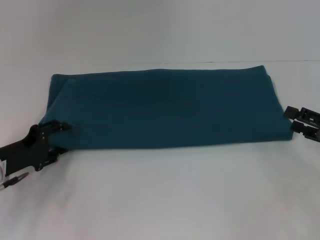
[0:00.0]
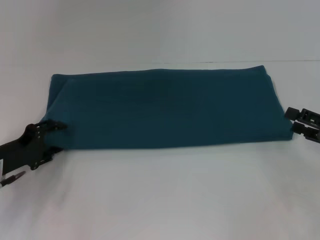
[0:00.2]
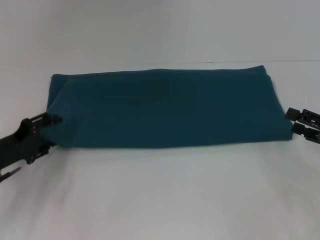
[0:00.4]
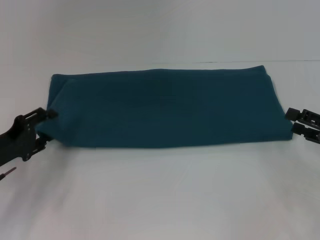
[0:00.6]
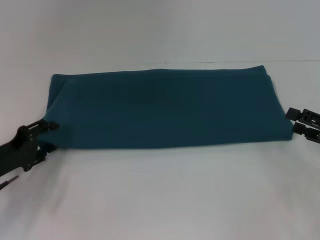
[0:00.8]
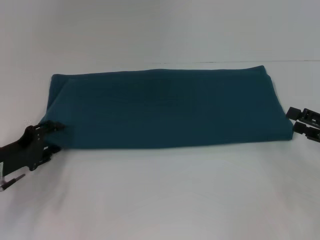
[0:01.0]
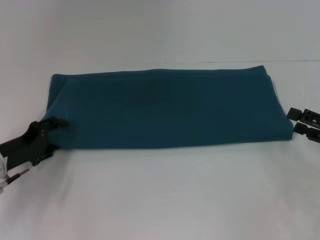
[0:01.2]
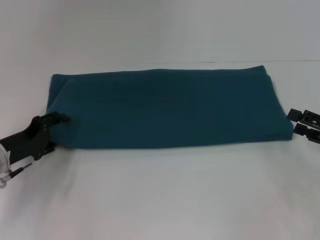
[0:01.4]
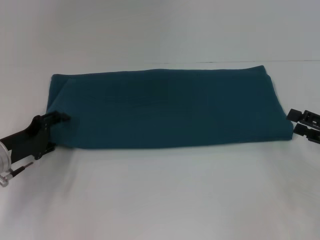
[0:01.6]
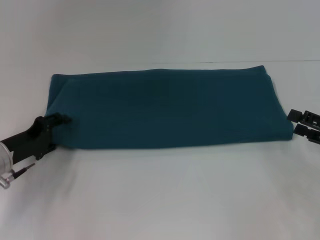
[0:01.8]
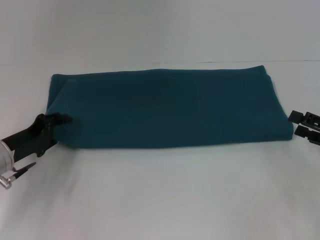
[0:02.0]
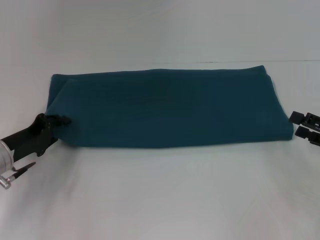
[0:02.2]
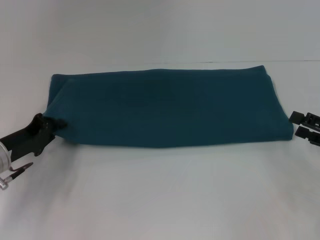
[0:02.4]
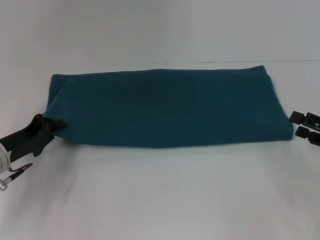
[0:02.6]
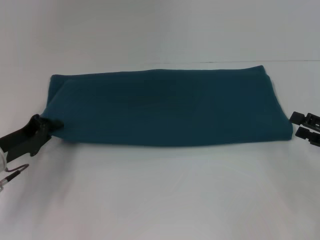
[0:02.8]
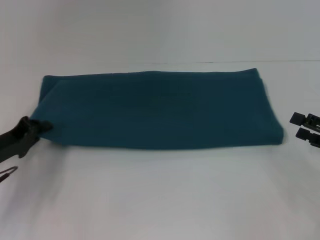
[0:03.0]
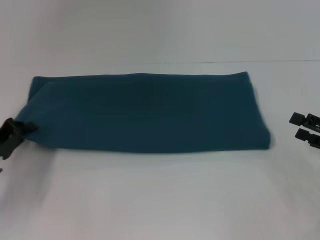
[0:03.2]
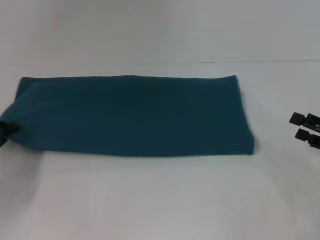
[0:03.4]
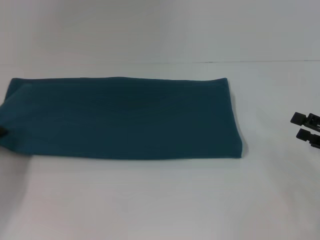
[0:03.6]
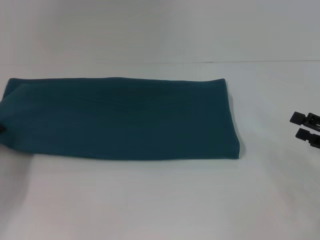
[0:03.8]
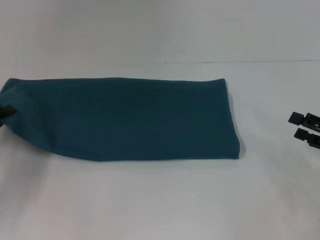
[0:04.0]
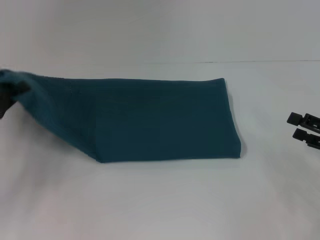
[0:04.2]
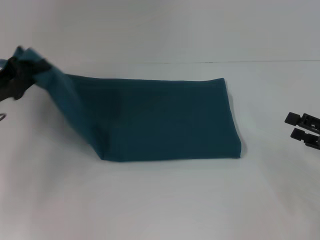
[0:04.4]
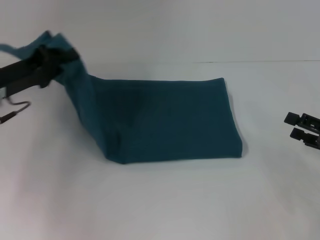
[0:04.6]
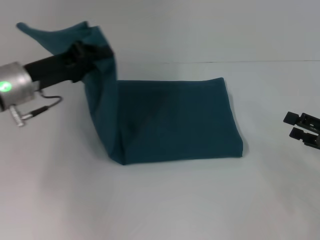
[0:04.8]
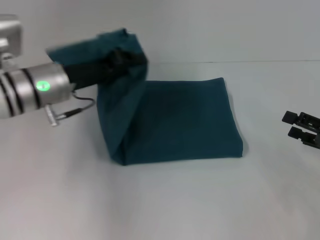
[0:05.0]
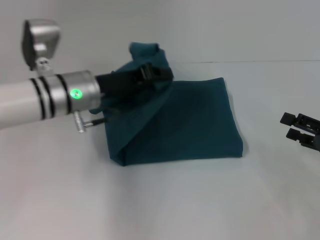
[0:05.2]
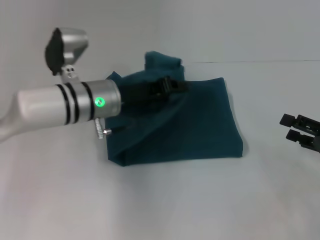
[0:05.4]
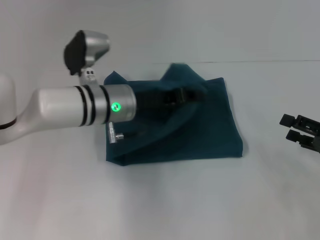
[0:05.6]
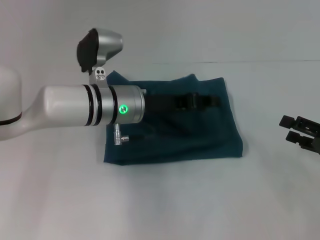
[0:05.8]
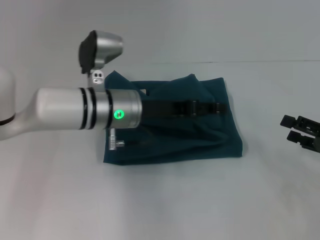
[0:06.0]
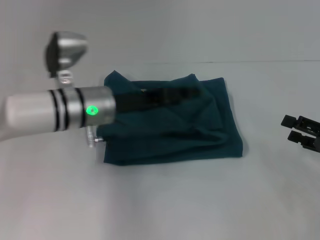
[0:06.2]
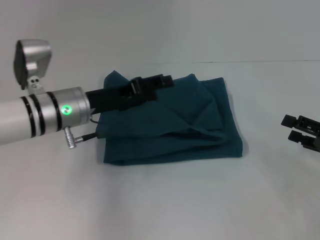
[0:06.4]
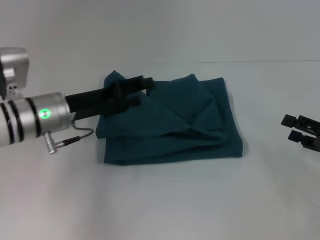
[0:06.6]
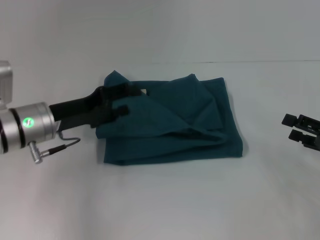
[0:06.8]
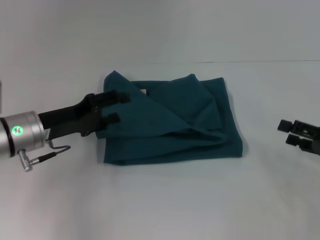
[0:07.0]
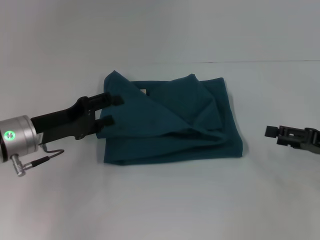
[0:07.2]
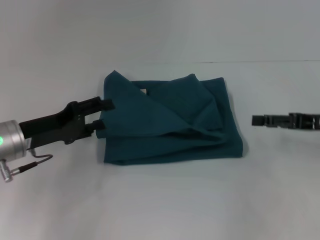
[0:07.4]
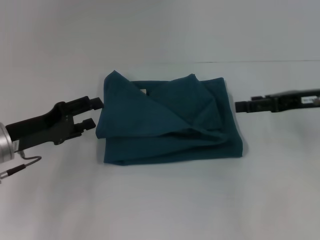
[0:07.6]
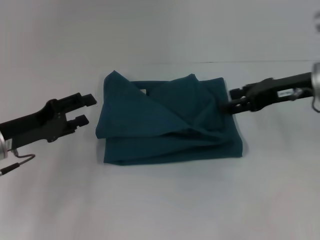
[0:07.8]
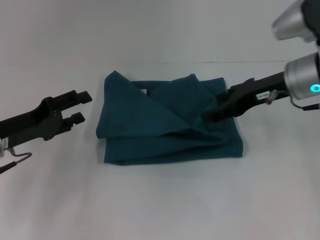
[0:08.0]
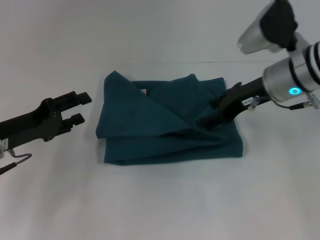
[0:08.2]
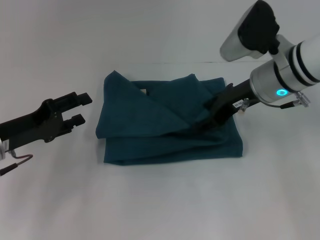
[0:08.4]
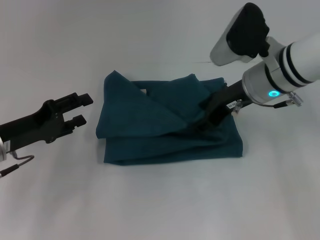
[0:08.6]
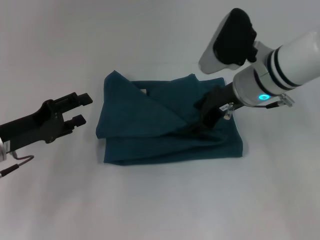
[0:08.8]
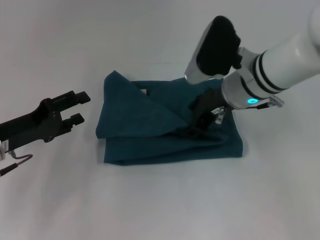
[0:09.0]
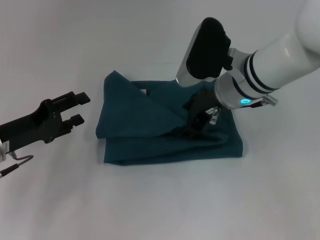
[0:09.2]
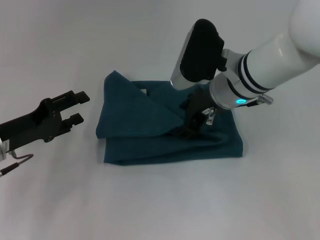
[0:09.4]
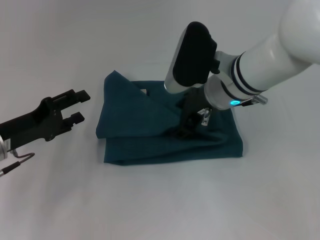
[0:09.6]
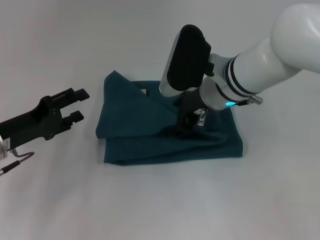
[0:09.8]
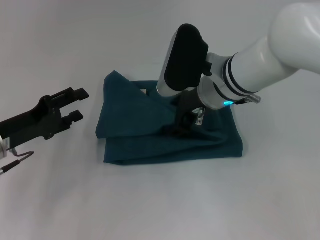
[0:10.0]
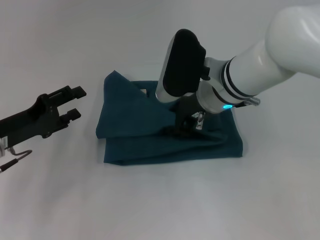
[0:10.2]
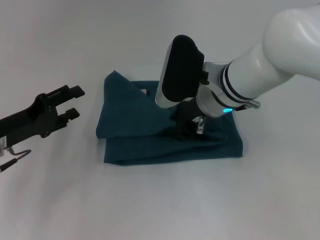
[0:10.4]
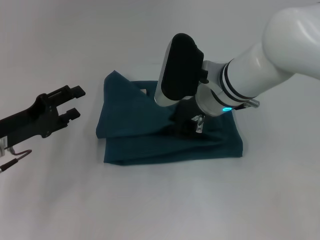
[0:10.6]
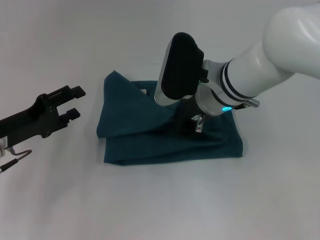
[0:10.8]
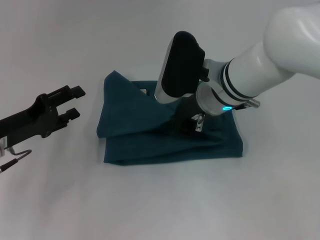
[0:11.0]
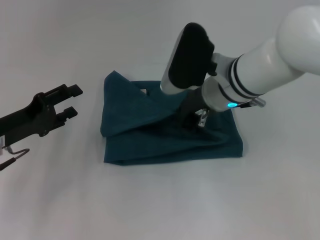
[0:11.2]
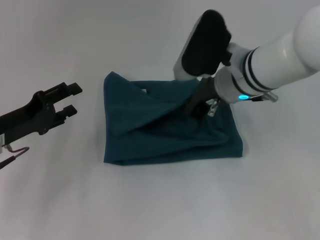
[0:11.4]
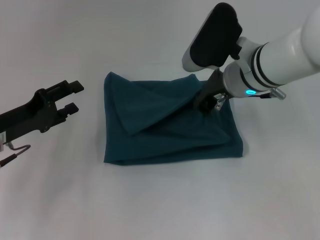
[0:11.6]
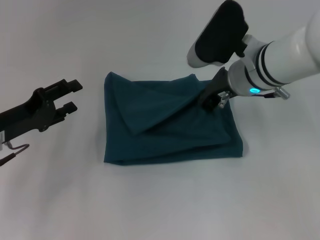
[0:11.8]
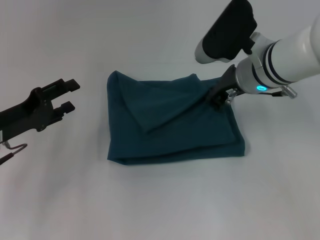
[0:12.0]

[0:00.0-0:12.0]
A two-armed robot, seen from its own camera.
Step, 0:00.0 to 0:06.2: Fold the clothes to the left.
0:00.0 to 0:01.6: There are only small adjustments of the grippers.
0:01.6 to 0:03.0: The left gripper closes its fingers.
0:03.0 to 0:04.4: The left gripper moves upward, about 10 cm.
0:04.4 to 0:06.0: The left gripper shifts about 20 cm to the right, and opens.
0:06.0 to 0:07.6: The left gripper shifts approximately 15 cm to the left. The right gripper moves forward, upward and to the left, some 15 cm.
0:07.6 to 0:09.0: The right gripper goes some 15 cm to the left.
0:09.0 to 0:10.4: The grippers move only a little.
0:10.4 to 0:12.0: The right gripper moves to the right, about 5 cm, and closes up.

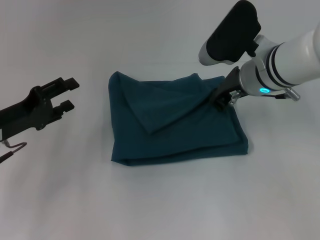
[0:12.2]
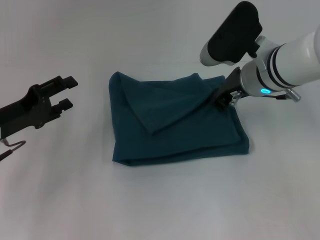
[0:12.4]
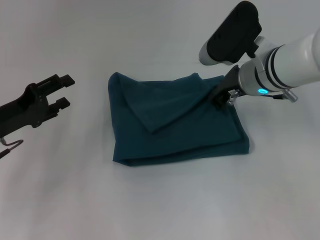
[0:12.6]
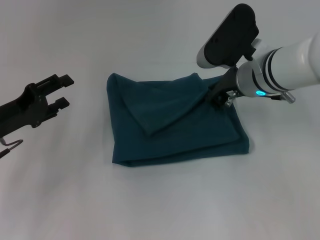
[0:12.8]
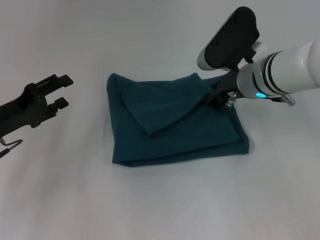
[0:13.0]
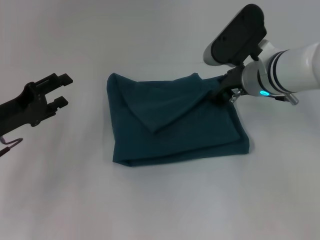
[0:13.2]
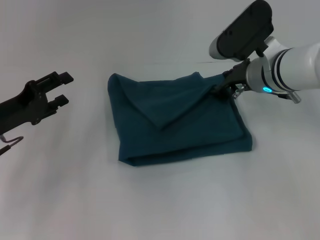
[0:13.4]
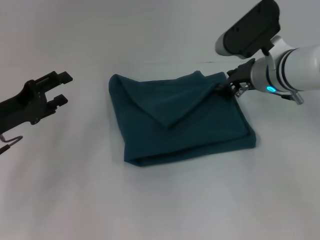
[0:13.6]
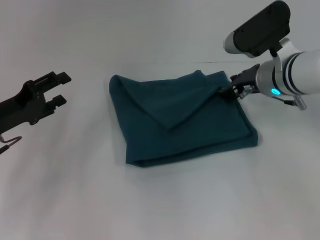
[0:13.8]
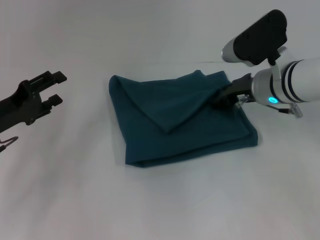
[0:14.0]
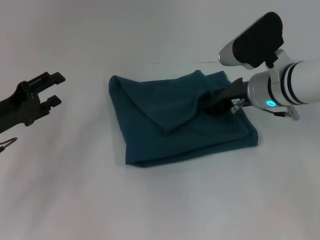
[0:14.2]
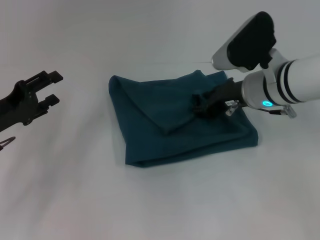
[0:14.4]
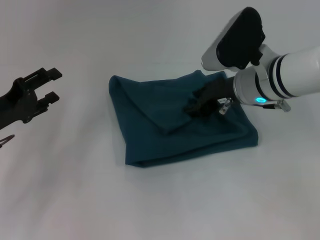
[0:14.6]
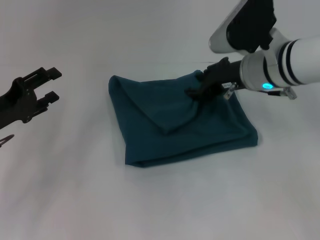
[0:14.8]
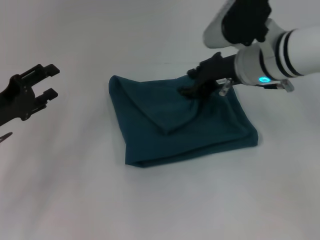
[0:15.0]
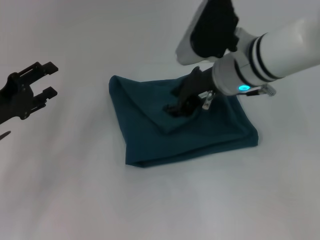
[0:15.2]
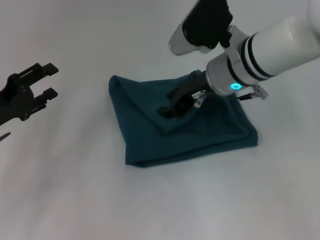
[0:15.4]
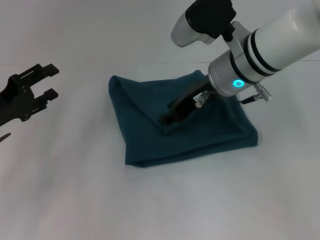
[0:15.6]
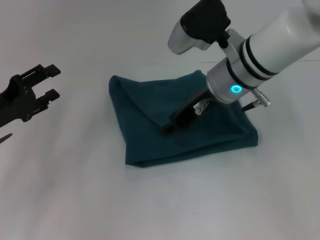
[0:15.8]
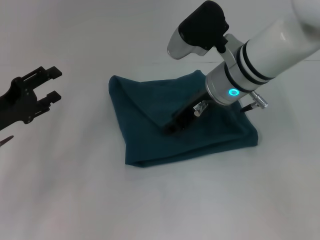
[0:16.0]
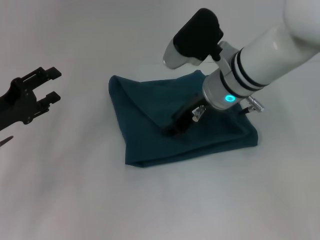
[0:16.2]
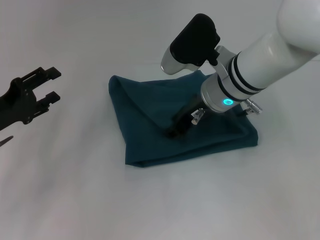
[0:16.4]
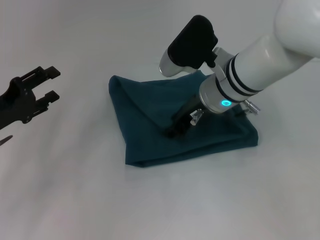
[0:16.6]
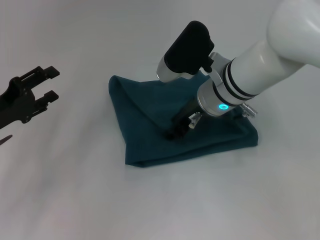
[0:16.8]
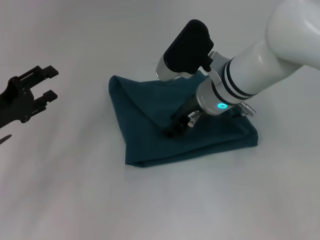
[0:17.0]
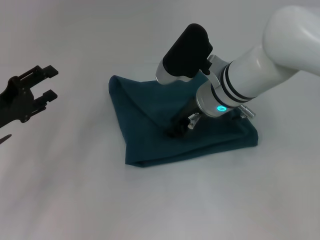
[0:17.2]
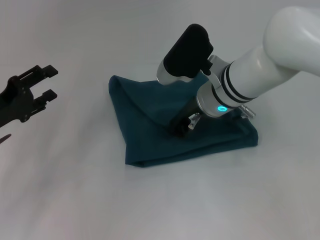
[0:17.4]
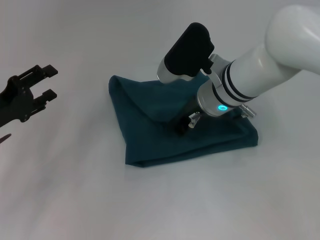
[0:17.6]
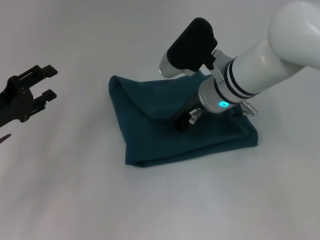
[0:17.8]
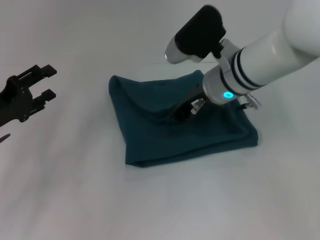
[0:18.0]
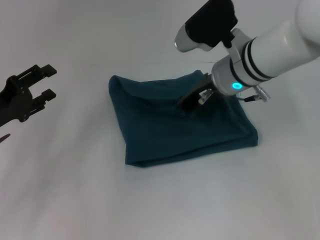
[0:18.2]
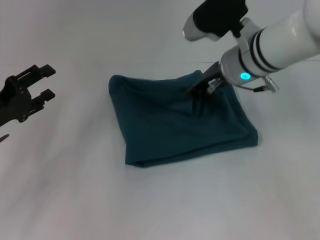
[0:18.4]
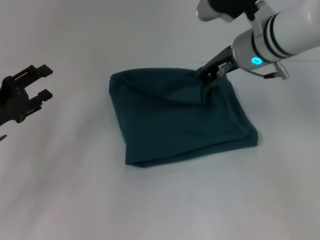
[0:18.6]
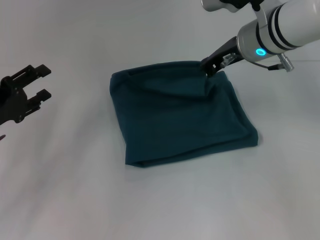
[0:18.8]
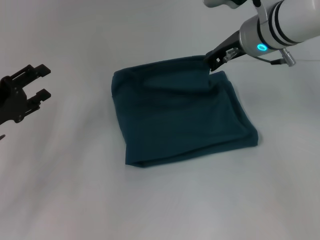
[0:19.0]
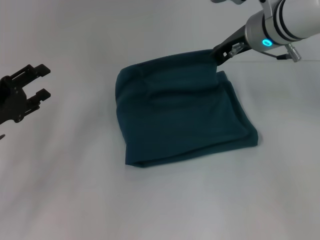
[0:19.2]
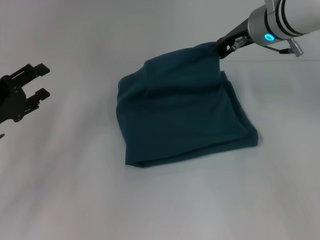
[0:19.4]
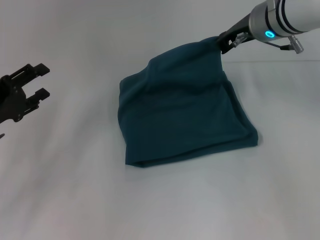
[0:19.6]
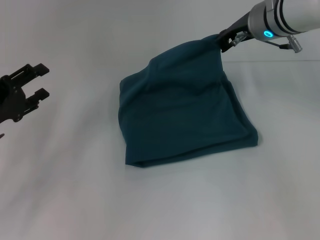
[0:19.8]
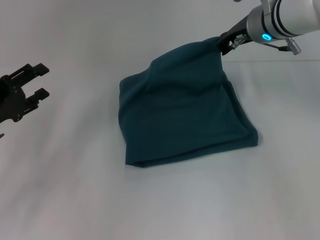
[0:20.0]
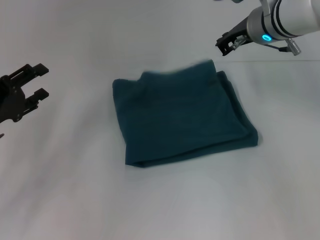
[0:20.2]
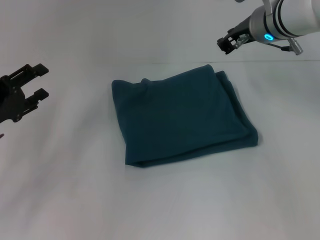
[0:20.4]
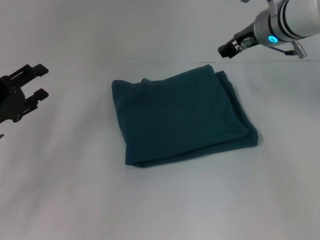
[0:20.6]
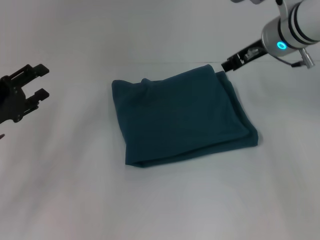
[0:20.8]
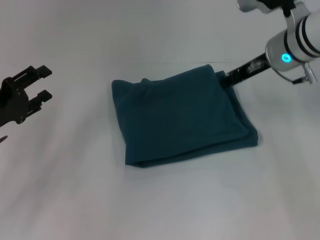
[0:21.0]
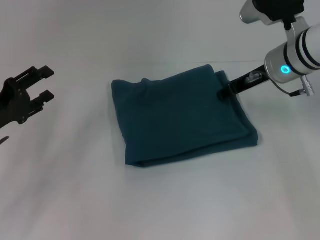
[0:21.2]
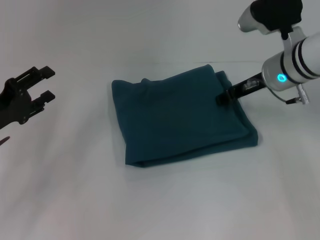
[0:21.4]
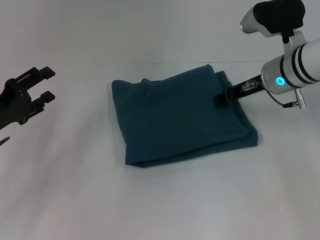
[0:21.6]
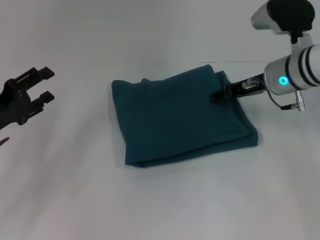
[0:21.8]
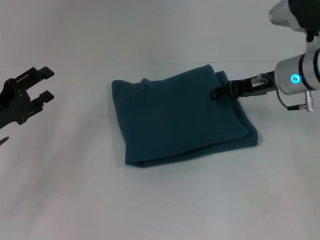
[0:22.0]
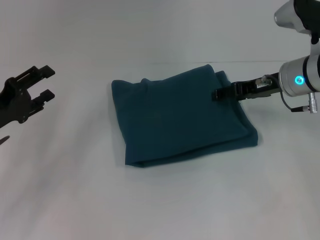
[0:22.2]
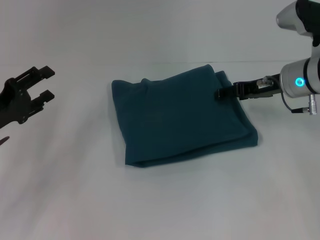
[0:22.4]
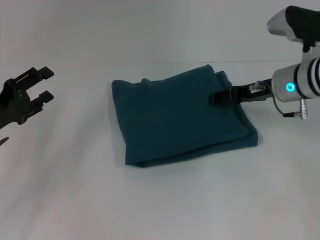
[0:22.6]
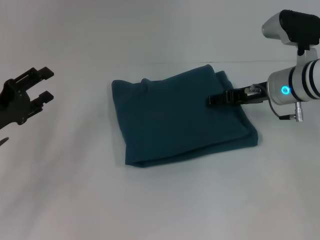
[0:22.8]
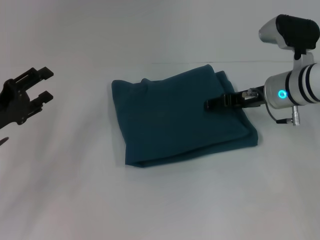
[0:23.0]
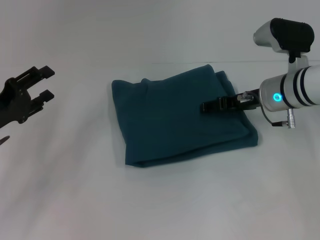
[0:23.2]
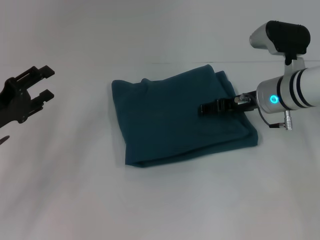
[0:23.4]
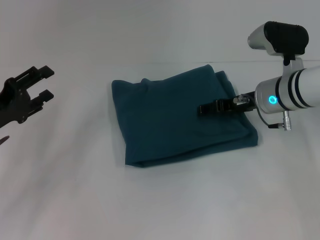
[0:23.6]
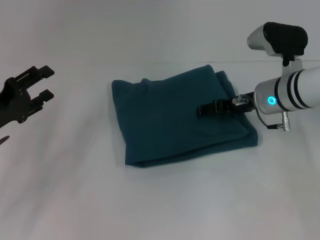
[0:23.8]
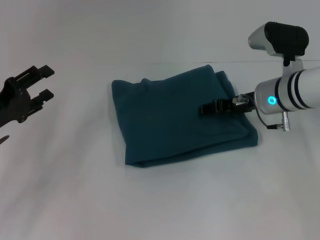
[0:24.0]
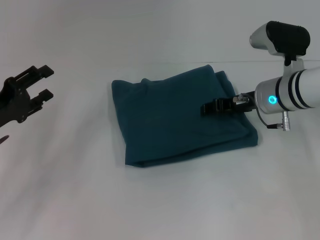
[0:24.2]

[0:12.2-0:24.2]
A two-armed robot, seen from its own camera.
0:12.2 to 0:13.8: The right gripper opens up.
0:13.8 to 0:15.2: The right gripper is displaced to the left by roughly 5 cm.
0:16.6 to 0:18.2: The right gripper closes.
0:18.2 to 0:19.8: The right gripper moves some 5 cm.
0:19.8 to 0:21.2: The right gripper moves some 5 cm, and opens its fingers.
0:21.2 to 0:22.6: The right gripper opens.
0:22.6 to 0:24.2: There are only small adjustments of the grippers.
